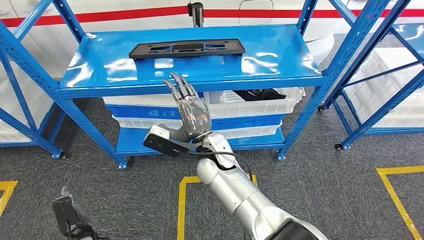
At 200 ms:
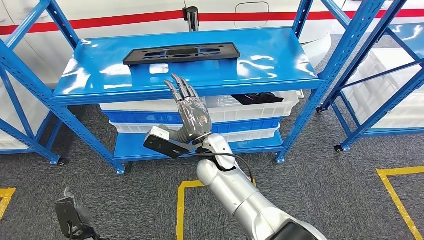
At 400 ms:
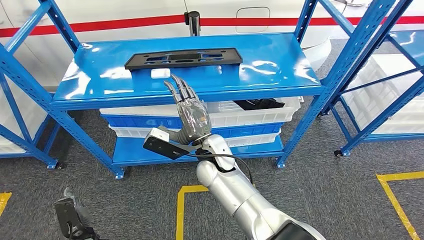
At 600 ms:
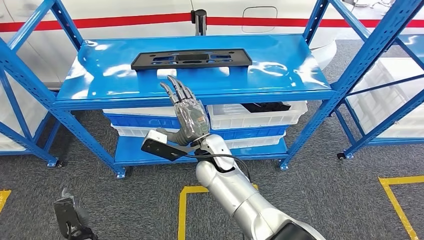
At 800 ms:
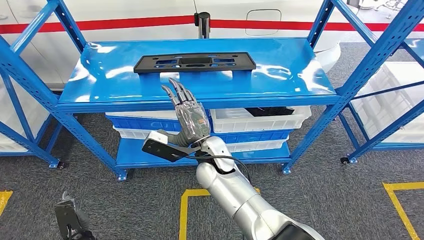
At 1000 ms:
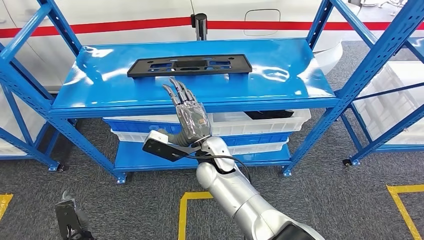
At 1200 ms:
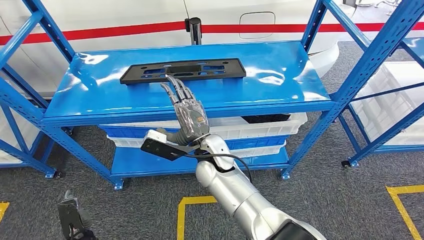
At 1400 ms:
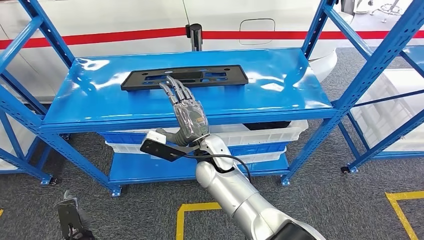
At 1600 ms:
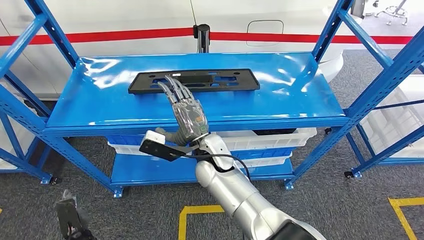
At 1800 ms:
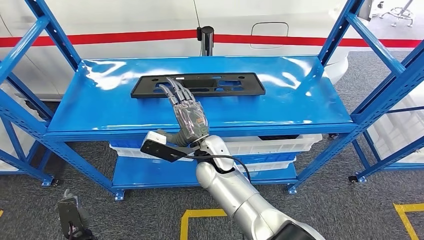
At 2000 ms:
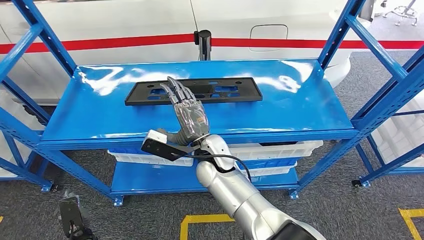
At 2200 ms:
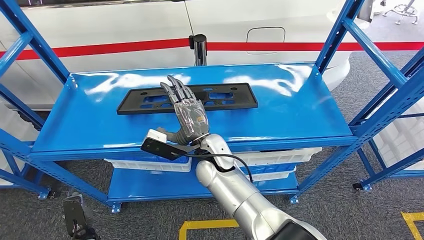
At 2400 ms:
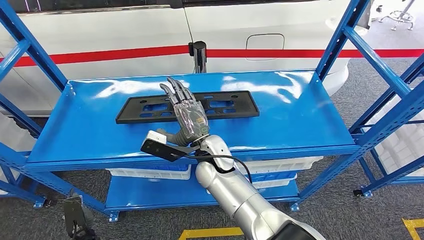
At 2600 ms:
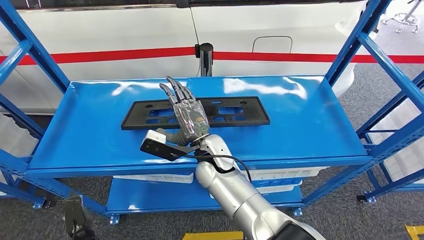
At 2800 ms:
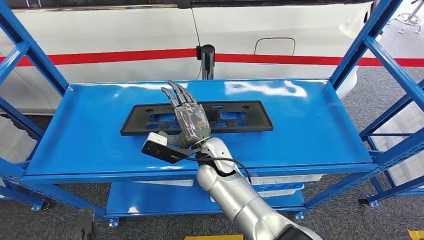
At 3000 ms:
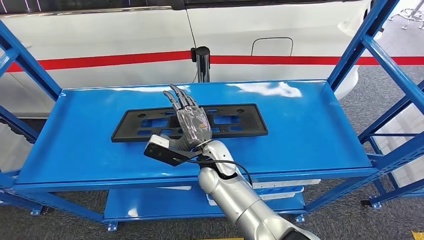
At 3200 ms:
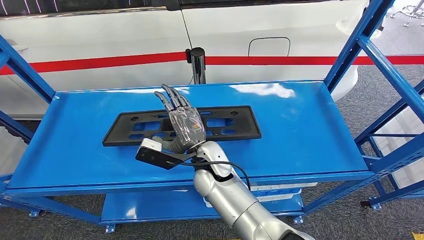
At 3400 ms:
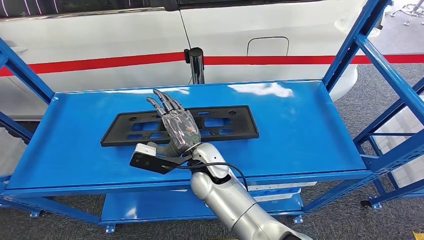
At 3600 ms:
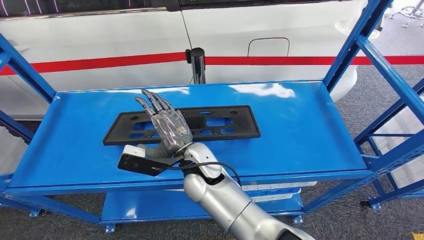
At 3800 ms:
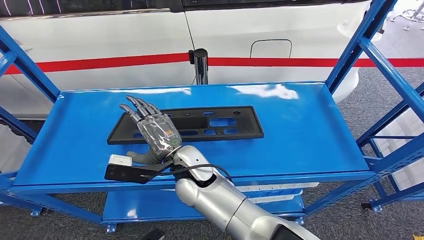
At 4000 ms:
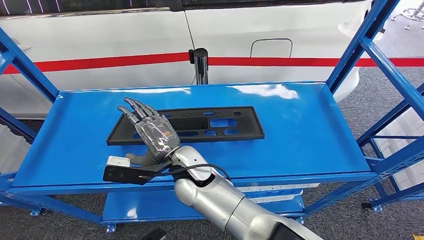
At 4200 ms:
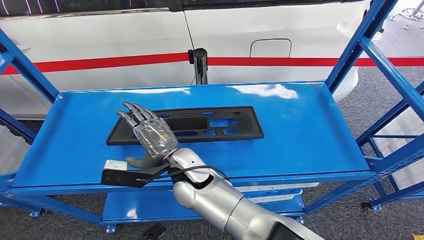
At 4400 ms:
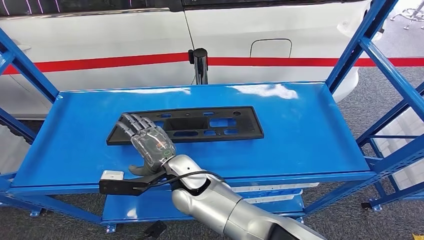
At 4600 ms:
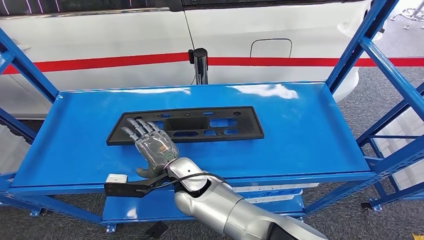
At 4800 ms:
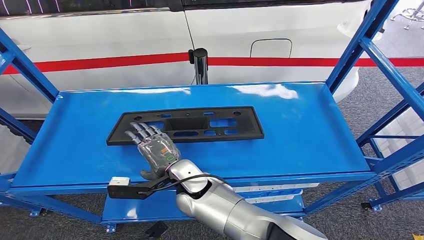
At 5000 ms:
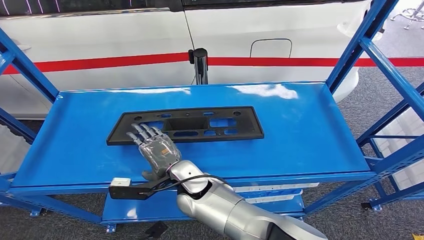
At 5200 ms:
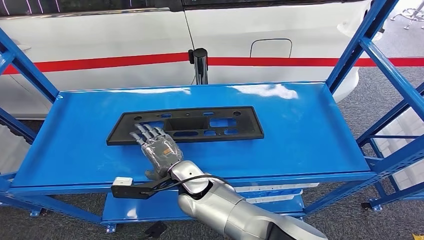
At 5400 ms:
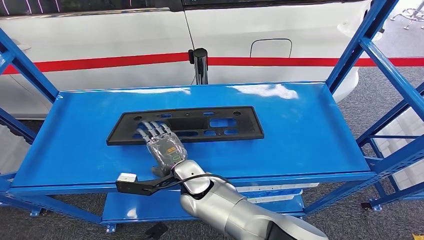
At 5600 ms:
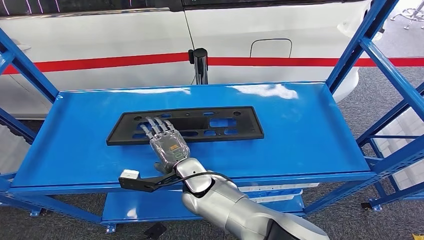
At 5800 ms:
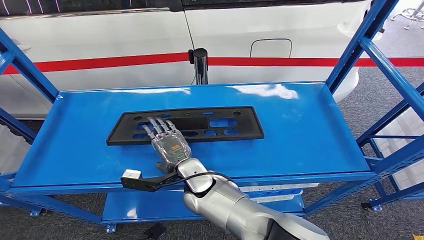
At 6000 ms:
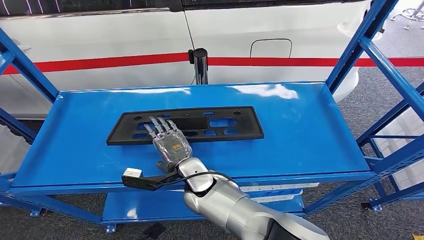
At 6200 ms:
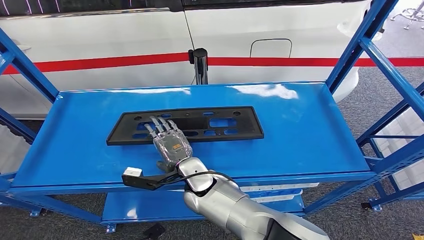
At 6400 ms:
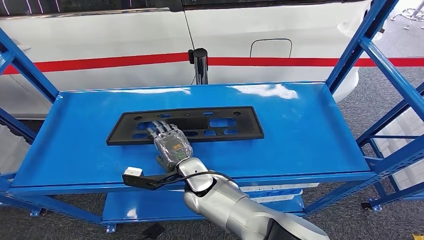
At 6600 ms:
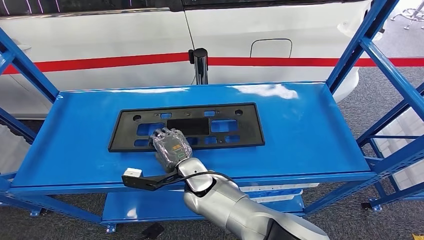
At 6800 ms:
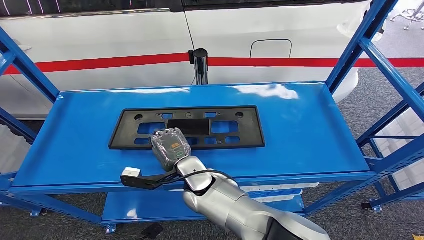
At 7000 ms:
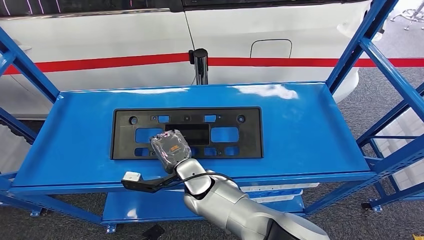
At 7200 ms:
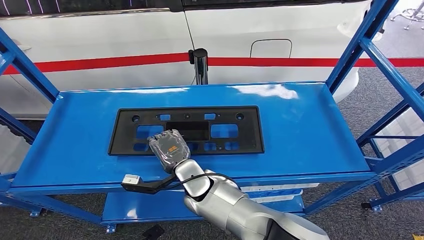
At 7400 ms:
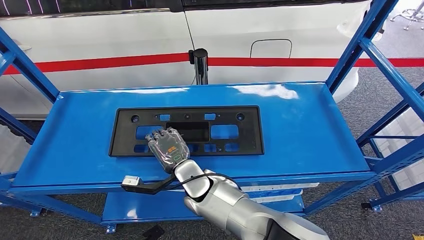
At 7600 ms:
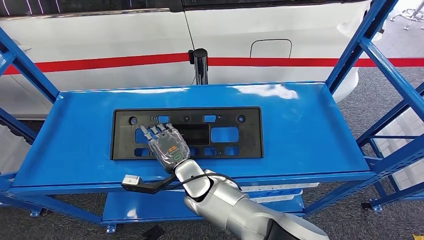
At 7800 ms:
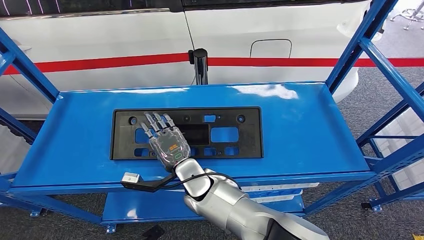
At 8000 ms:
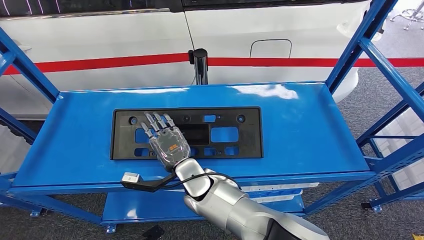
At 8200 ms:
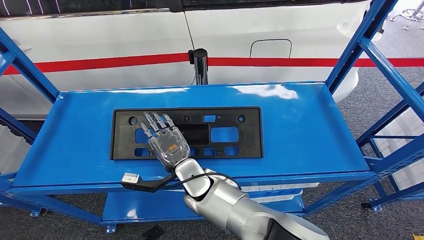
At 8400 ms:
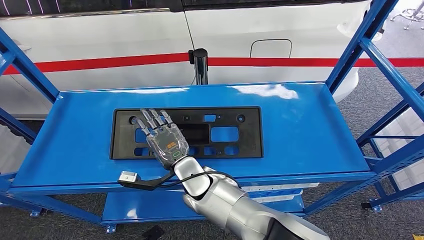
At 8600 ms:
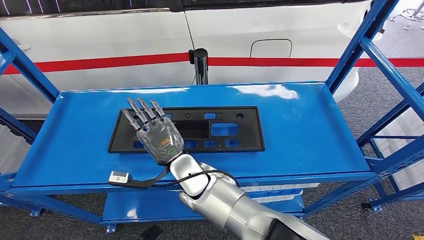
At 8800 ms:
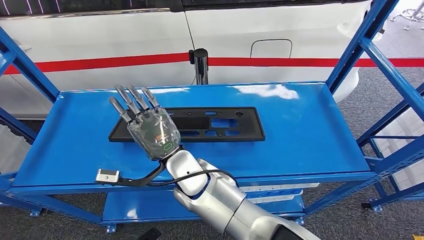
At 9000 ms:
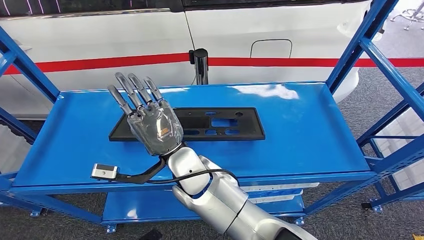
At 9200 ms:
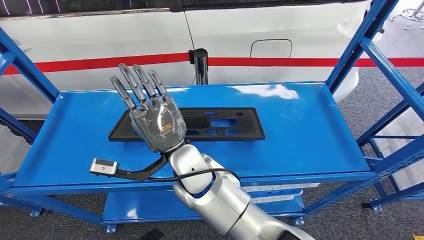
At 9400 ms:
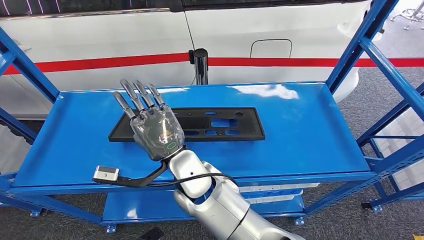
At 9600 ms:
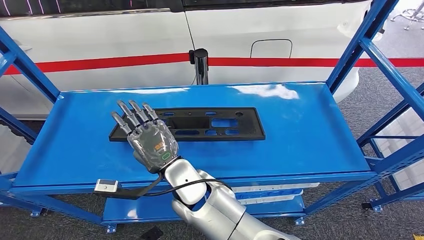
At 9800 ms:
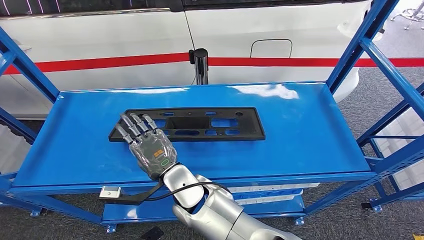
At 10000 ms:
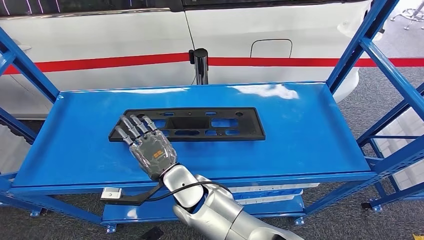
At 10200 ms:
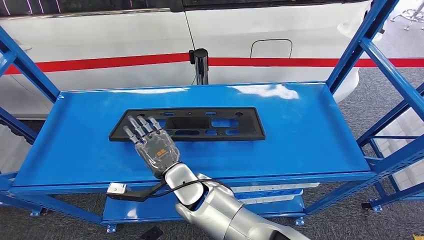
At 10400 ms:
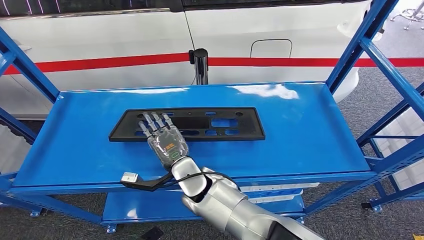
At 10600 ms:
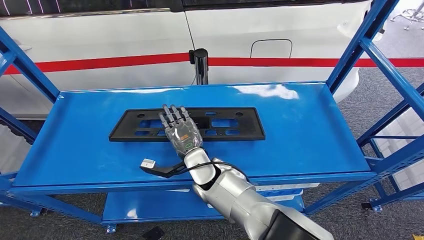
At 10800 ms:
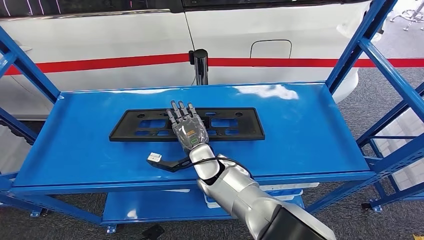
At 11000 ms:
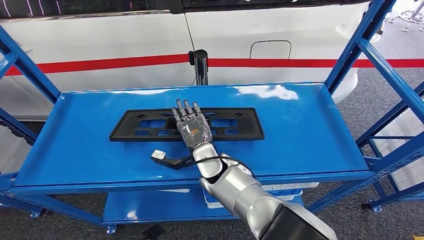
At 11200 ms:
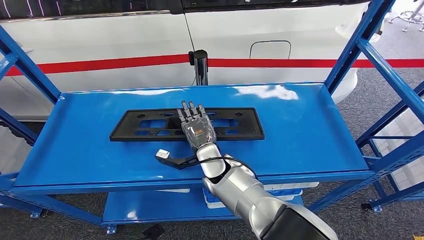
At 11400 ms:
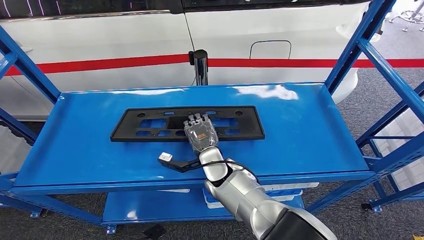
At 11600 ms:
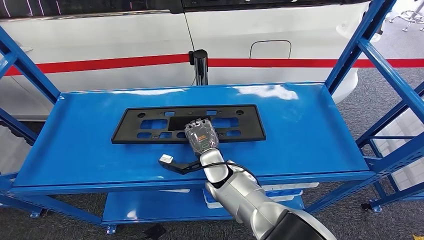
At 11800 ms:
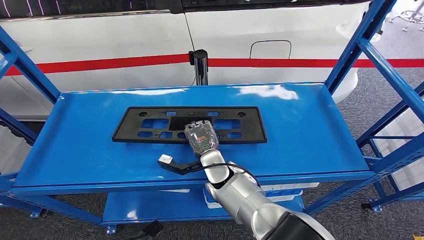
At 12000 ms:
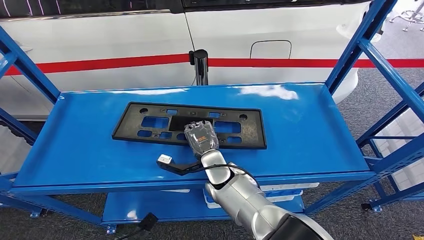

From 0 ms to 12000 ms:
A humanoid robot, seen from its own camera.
From 6000 ms to 7600 ms: The hands move only a little.
From 7600 ms to 9000 ms: The right hand heads upward, covering about 10 cm.
From 9000 ms to 10400 ms: The right hand heads downward, covering approximately 10 cm.
From 10400 ms to 12000 ms: The right hand goes approximately 5 cm to the right.

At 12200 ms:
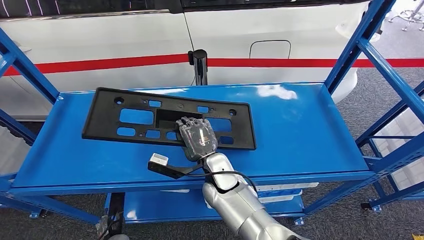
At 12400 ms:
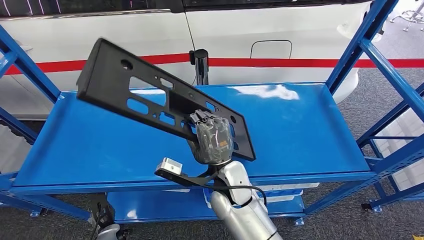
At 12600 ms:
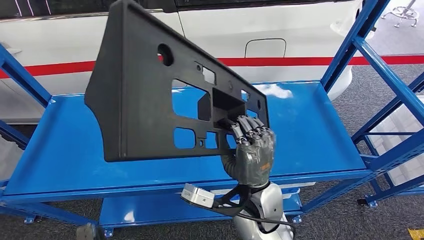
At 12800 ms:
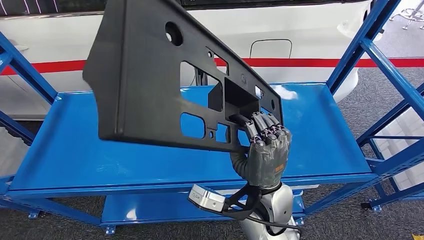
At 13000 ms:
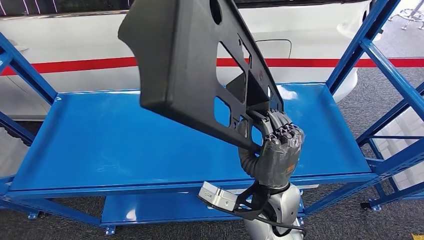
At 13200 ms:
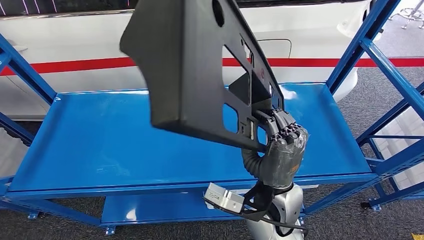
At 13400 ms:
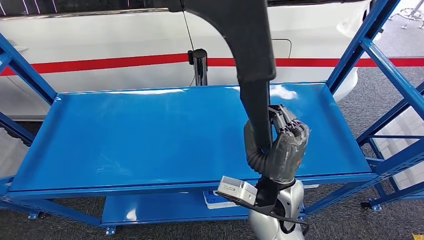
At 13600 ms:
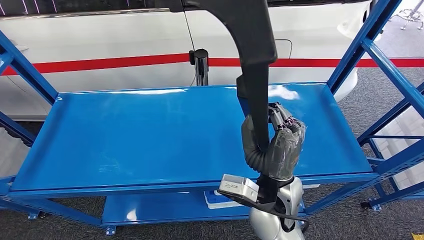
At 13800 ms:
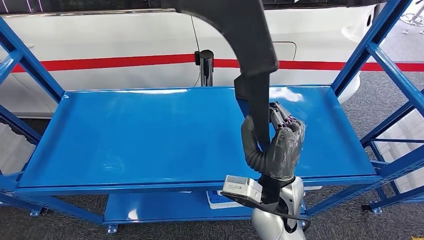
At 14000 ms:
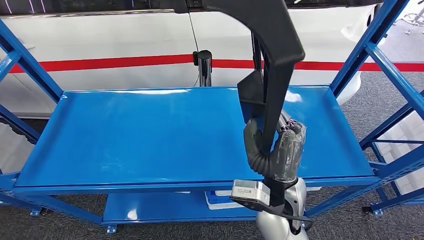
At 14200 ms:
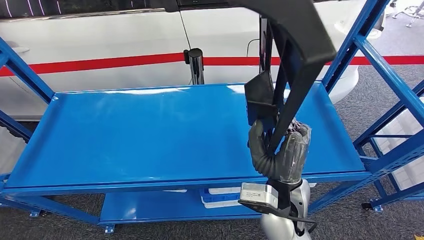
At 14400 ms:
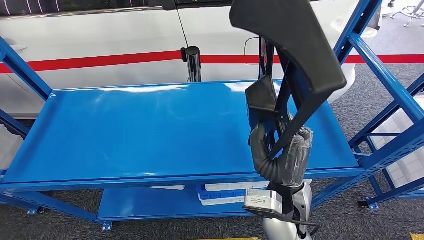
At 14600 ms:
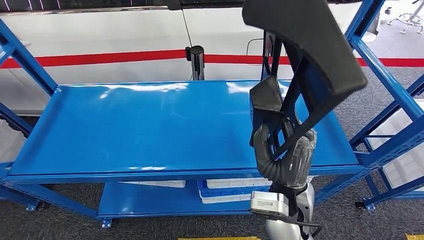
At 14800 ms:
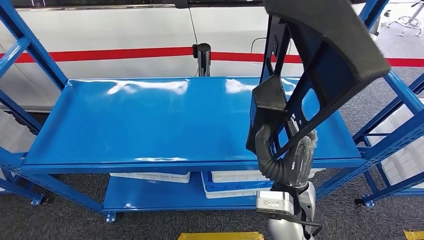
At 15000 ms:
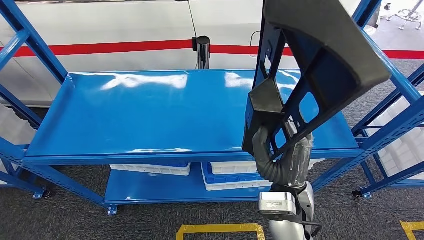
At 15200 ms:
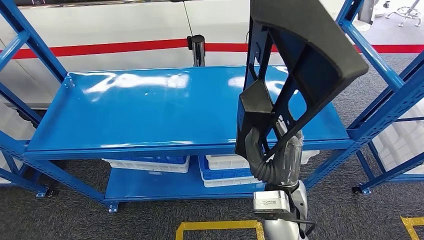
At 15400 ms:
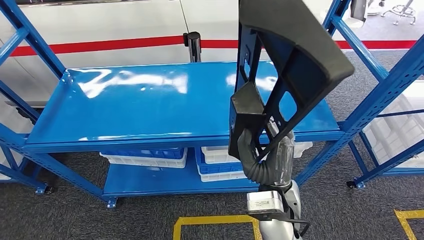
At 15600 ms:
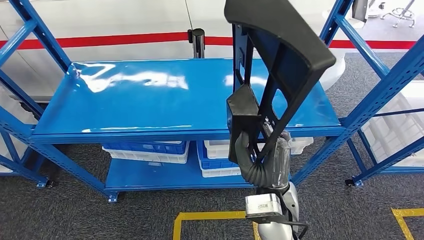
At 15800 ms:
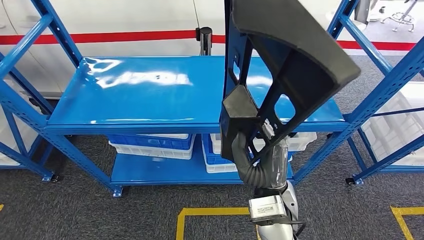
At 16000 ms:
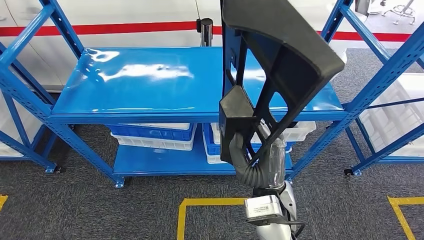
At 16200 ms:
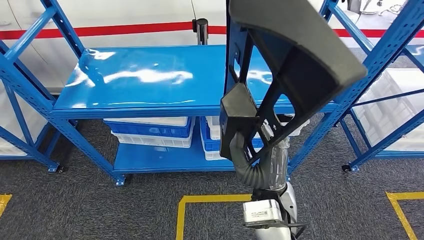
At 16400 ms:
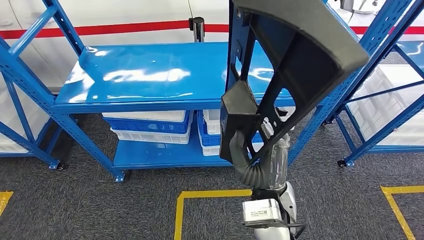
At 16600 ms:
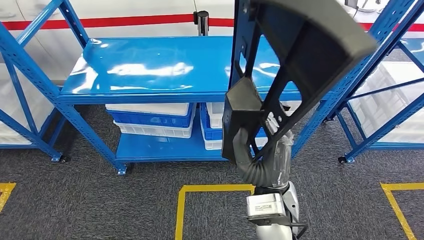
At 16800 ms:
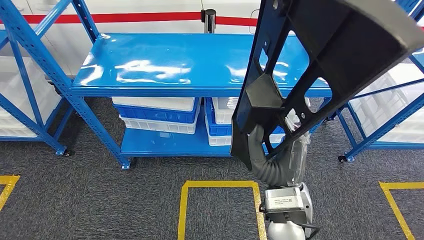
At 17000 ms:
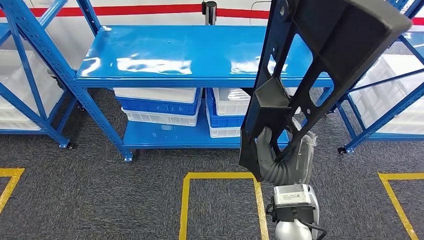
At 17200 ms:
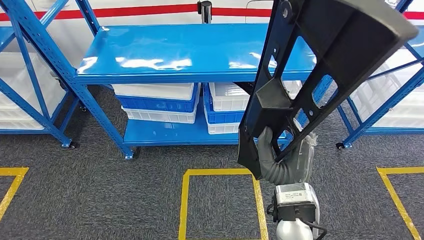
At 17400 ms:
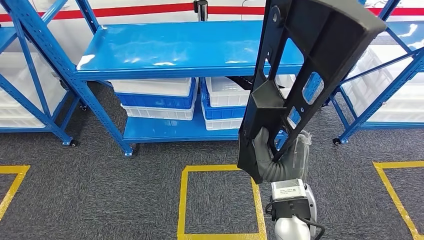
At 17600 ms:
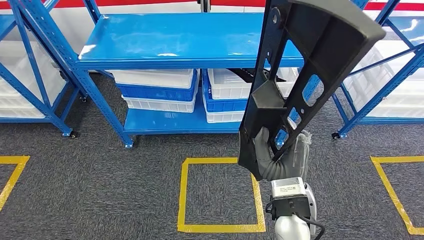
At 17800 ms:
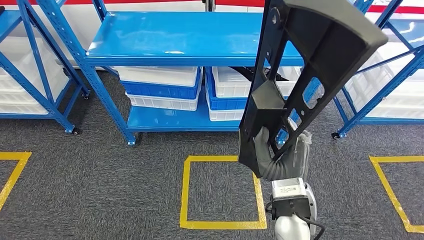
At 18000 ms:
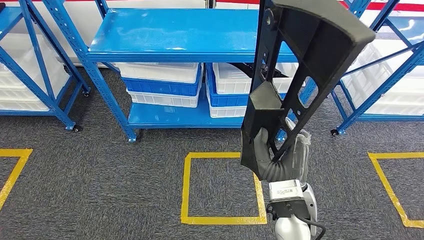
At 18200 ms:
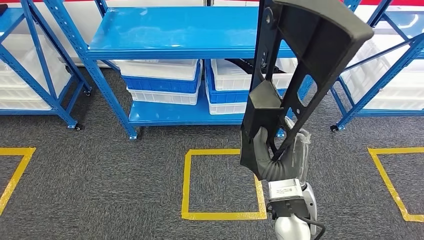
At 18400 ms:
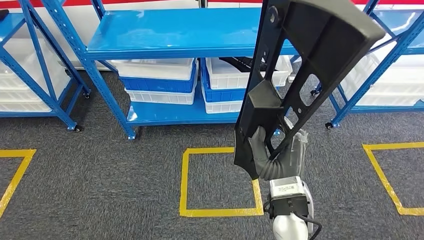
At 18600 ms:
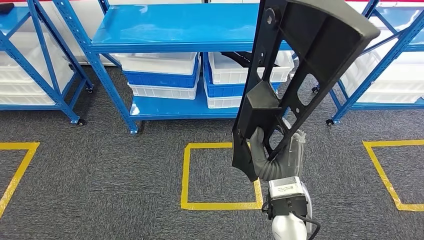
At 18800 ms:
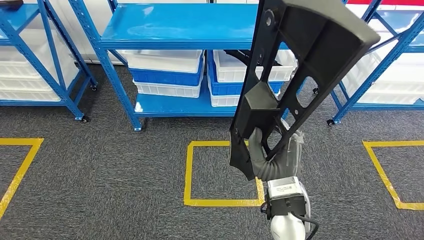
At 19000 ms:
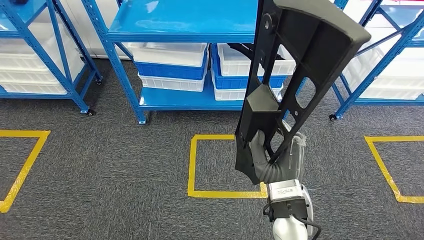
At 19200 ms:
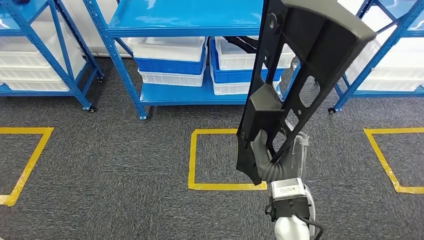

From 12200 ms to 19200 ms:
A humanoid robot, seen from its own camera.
Step, from 12200 ms to 15400 ms: Pick up the large material from the shelf.
